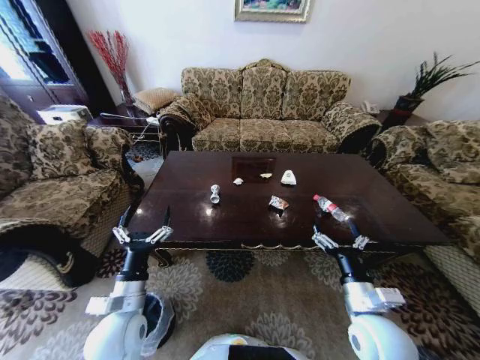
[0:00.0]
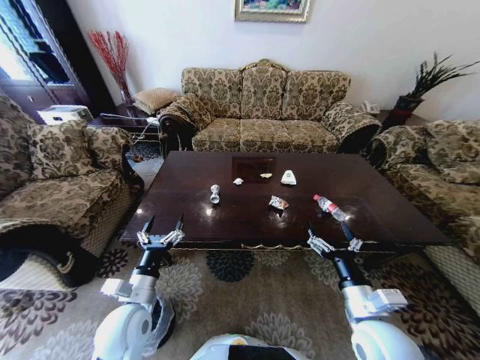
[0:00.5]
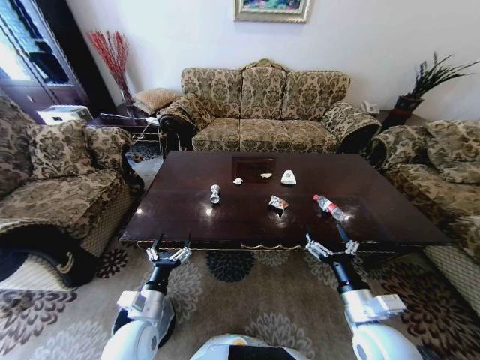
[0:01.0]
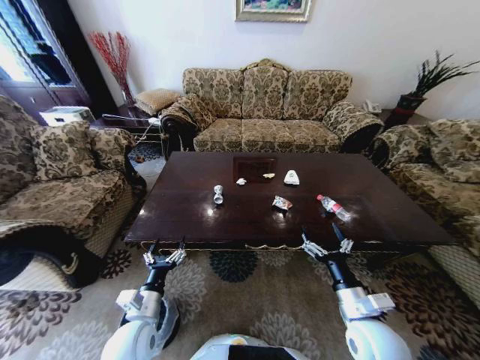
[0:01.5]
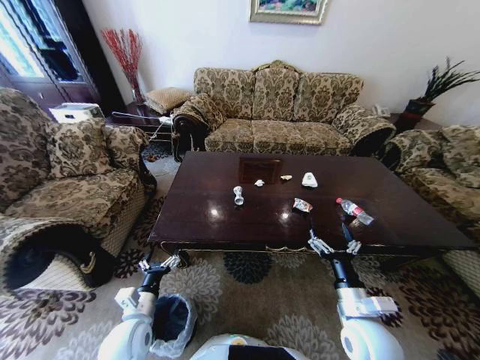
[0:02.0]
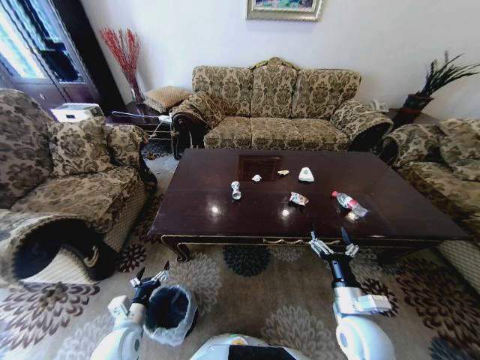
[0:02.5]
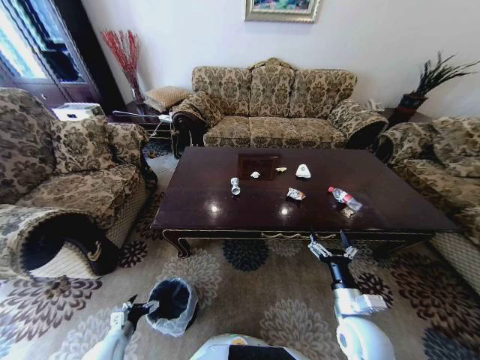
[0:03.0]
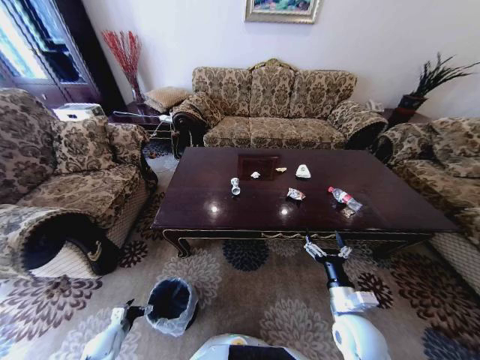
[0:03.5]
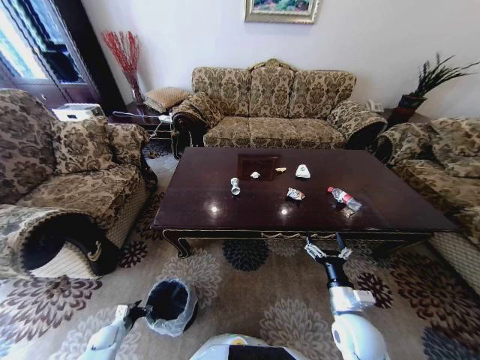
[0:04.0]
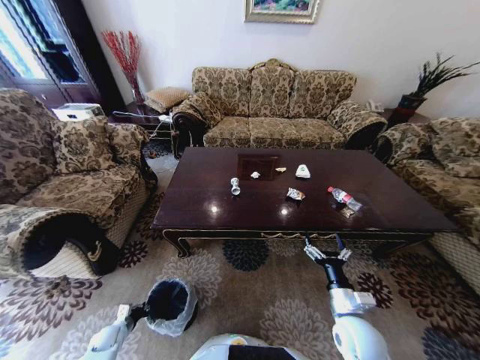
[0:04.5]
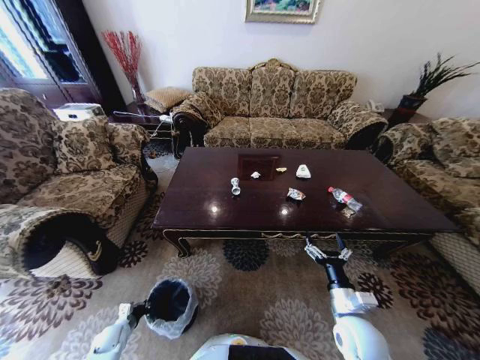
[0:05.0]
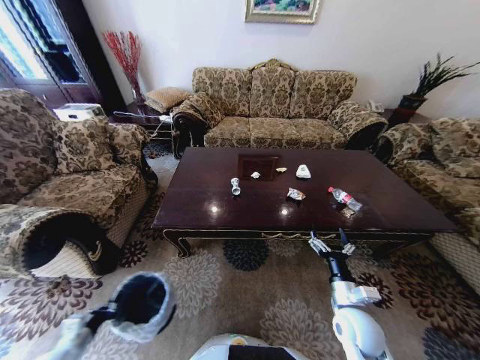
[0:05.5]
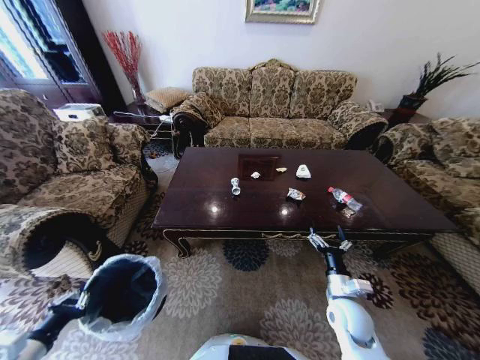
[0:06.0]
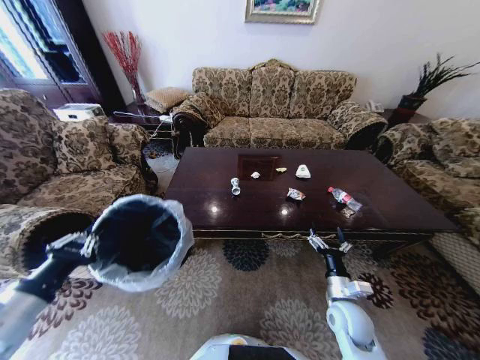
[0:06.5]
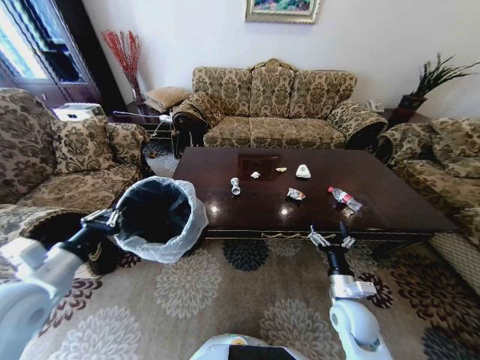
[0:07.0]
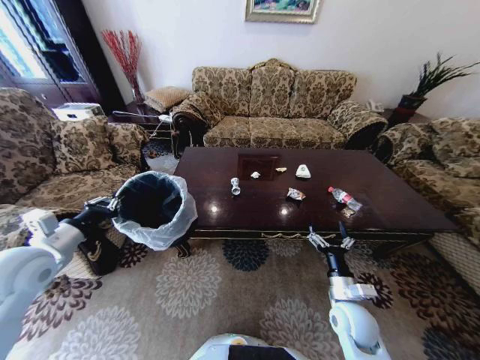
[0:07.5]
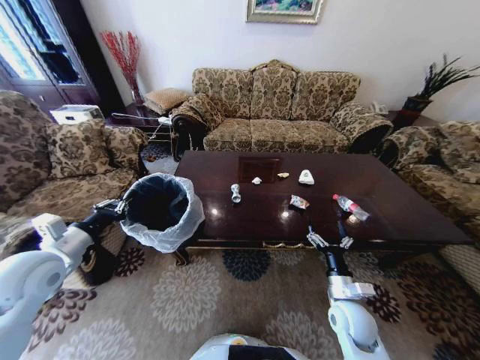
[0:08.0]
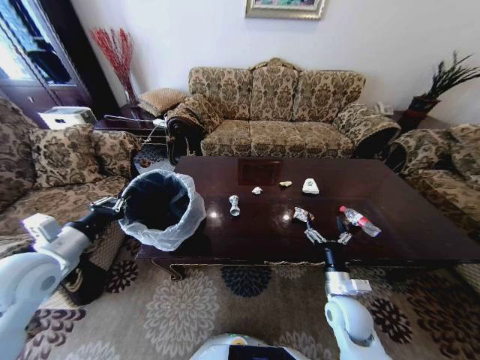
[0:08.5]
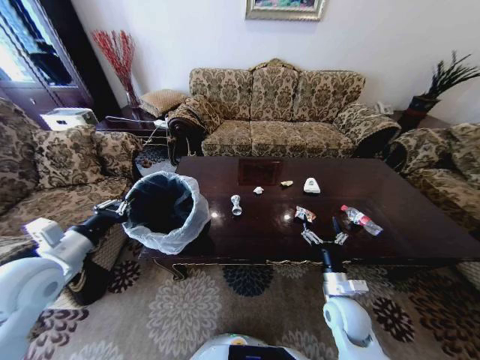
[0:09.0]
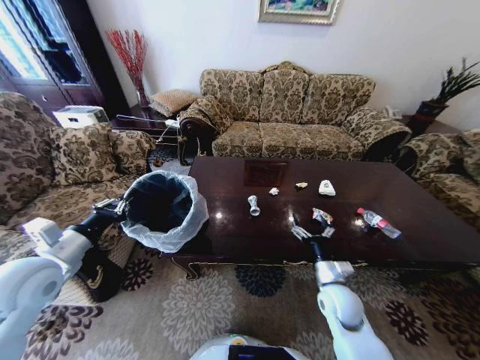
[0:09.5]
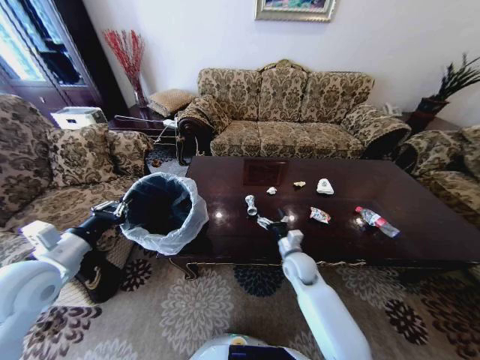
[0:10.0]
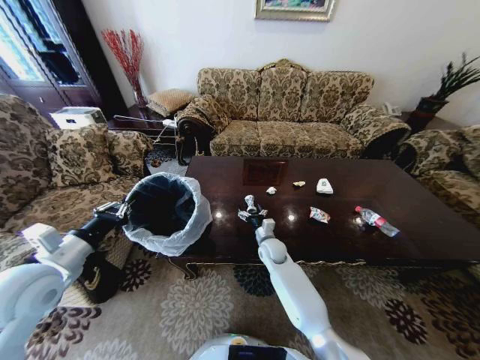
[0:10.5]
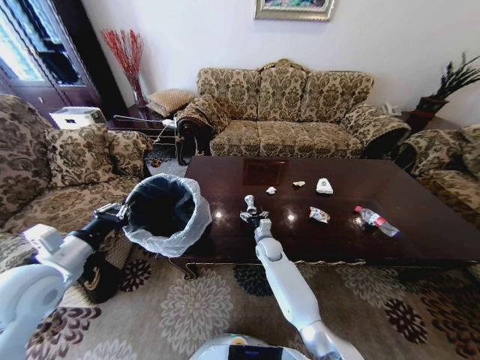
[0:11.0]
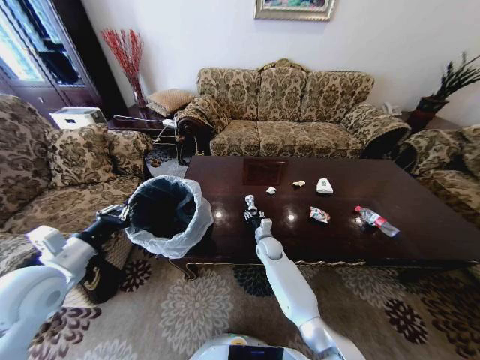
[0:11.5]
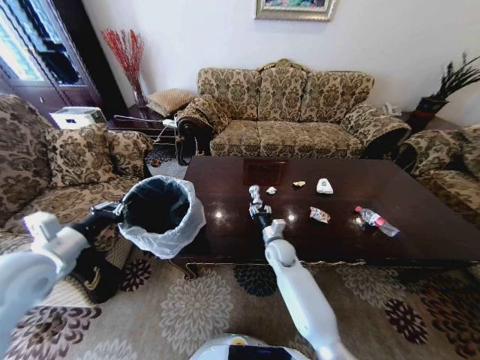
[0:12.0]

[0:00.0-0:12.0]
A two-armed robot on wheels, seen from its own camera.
Task of the whole recording: Move to the front of the table and place the trash on the table into the trash bin.
0:02.0 to 0:04.0: The left gripper is displaced downward and to the left by about 30 cm. Meanwhile the right gripper shifts by roughly 5 cm.
0:04.0 to 0:06.0: The left gripper heads upward, covering approximately 35 cm, and closes.
0:06.0 to 0:08.0: The left gripper travels forward and upward by roughly 20 cm.
0:08.0 to 0:10.0: The right gripper is displaced forward and to the left by about 15 cm.
0:10.0 to 0:12.0: The right gripper shifts roughly 5 cm forward and to the left, and closes up.

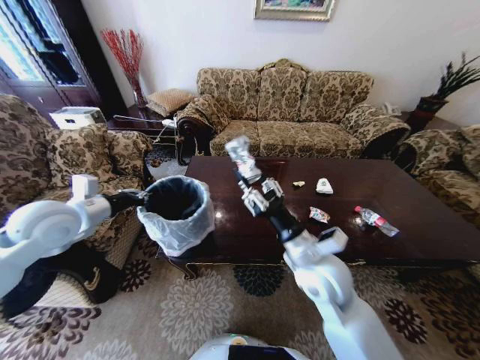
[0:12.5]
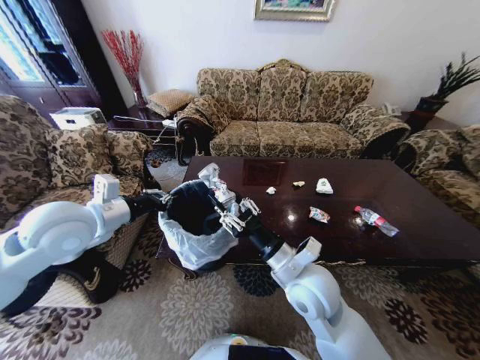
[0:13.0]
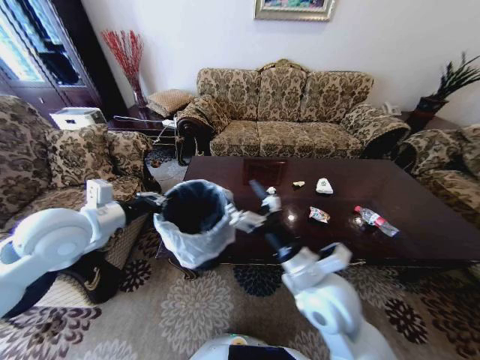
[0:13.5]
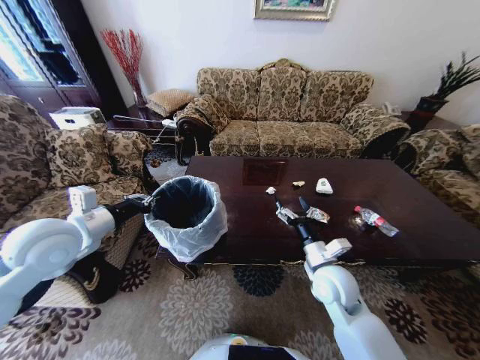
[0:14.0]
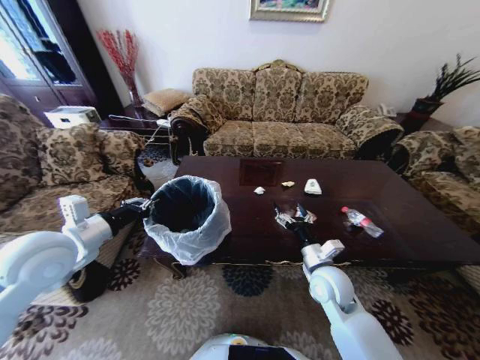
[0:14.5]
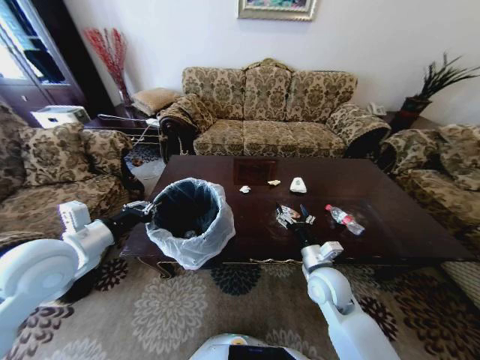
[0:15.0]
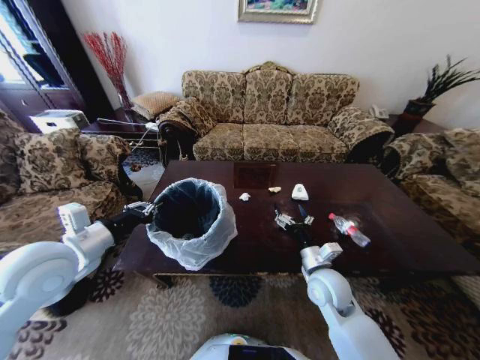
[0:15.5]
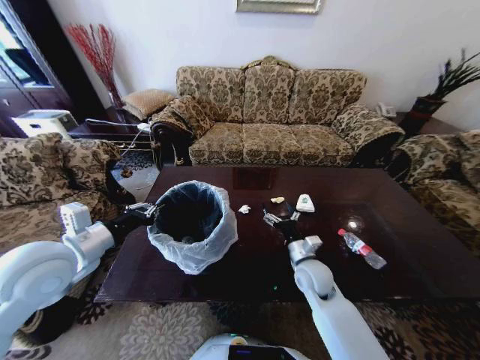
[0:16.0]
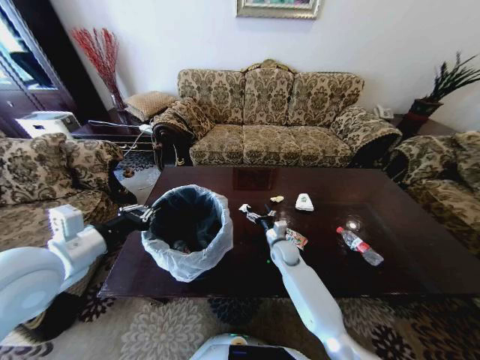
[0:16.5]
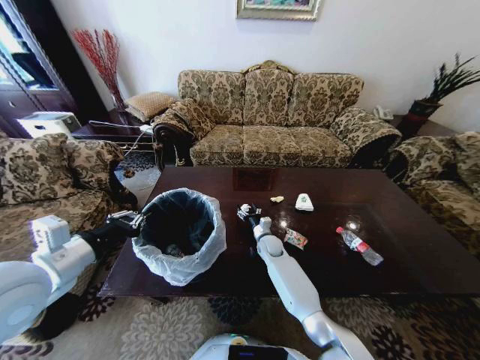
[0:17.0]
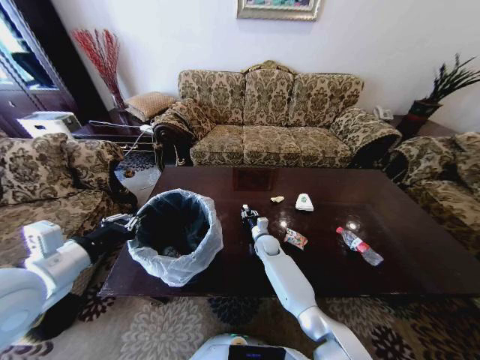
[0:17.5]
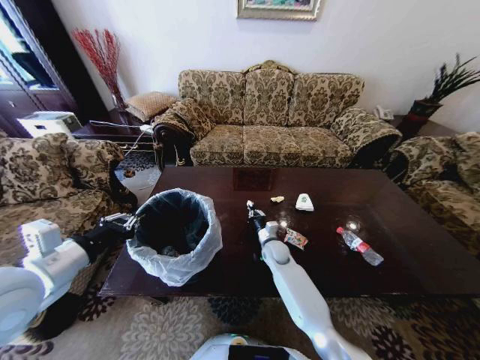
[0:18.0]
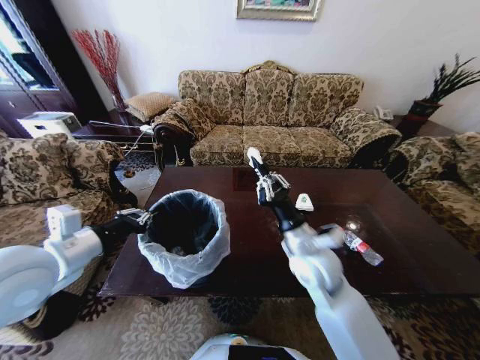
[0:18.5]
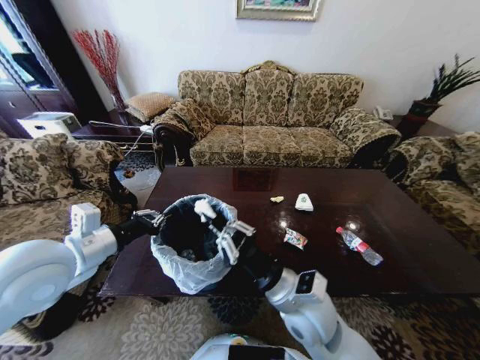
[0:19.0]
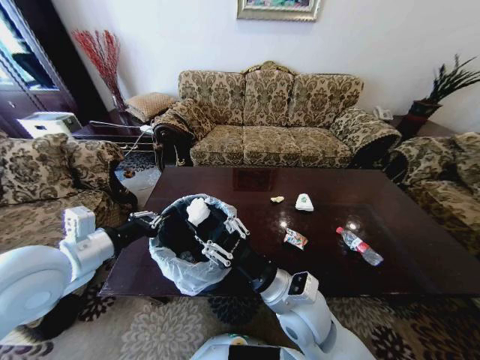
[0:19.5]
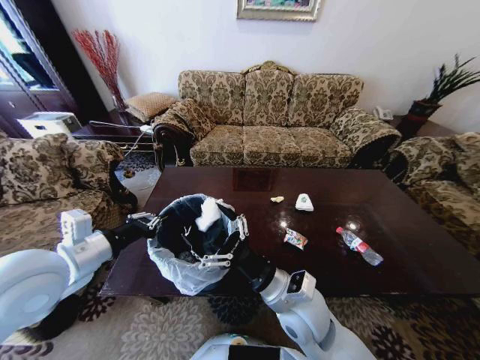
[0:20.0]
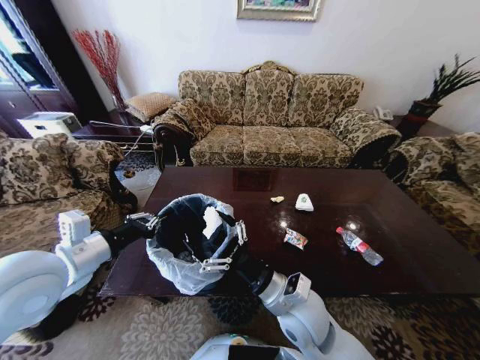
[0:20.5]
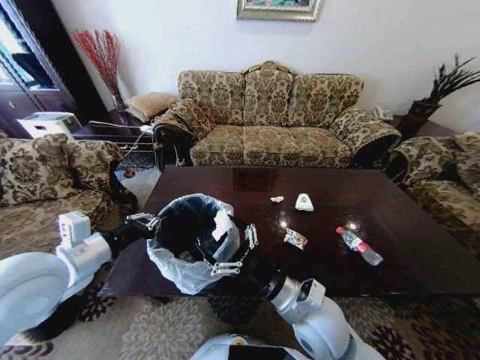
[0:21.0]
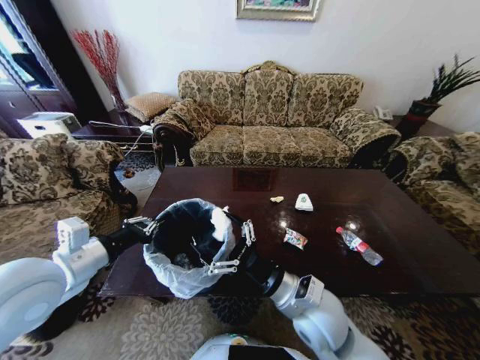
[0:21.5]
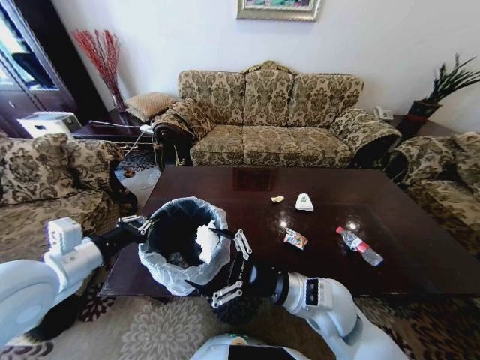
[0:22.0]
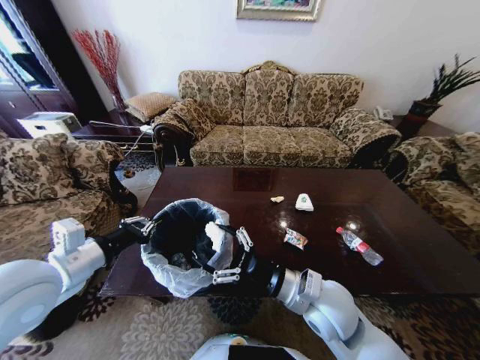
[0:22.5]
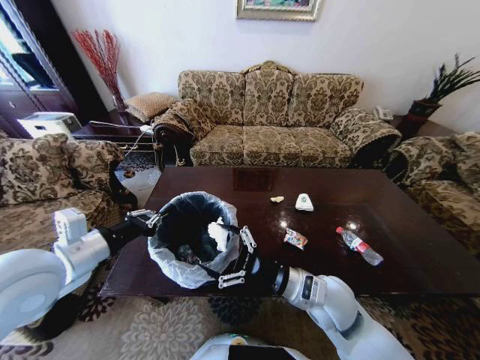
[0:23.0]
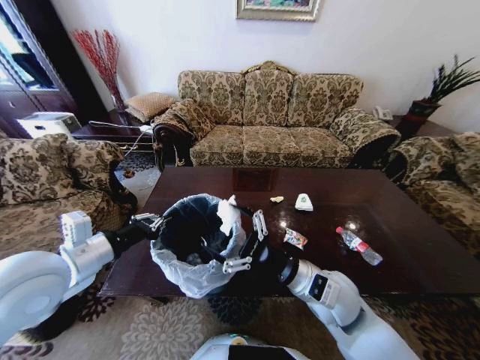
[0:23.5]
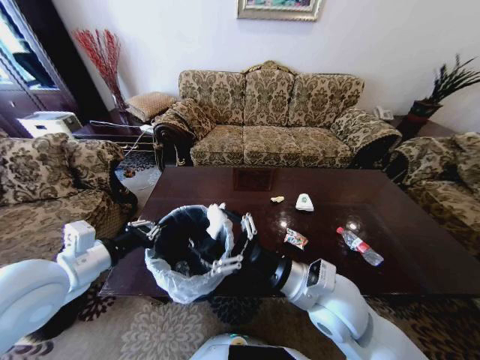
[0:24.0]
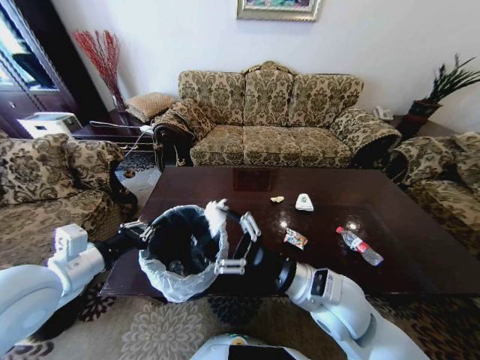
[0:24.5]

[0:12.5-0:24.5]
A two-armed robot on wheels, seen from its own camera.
Task of the whole recording: Move to the front of the table and place the trash on the table into the trash bin.
0:12.5 to 0:14.5: The right gripper goes approximately 10 cm downward and to the right, and opens its fingers. Meanwhile the left gripper travels backward by some 5 cm.
0:14.5 to 0:16.5: The right gripper moves forward, downward and to the left, some 20 cm; the left gripper ends up approximately 5 cm from where it was.
0:16.5 to 0:18.5: The right gripper is displaced upward and backward by about 25 cm, and closes up.
0:18.5 to 0:20.5: The right gripper moves backward, roughly 10 cm, and opens up.
0:20.5 to 0:22.5: The right gripper changes place by some 5 cm.

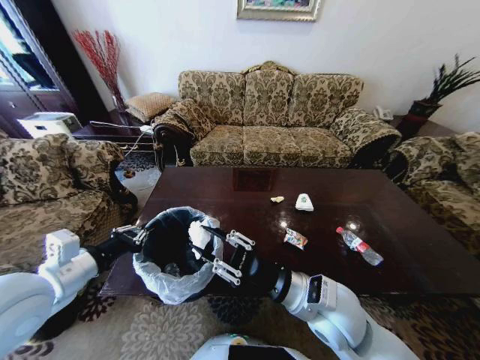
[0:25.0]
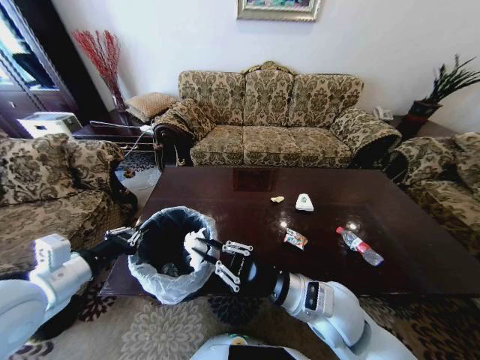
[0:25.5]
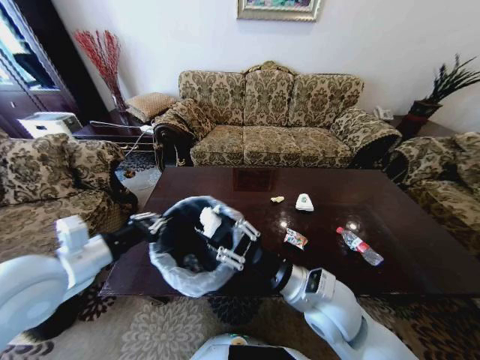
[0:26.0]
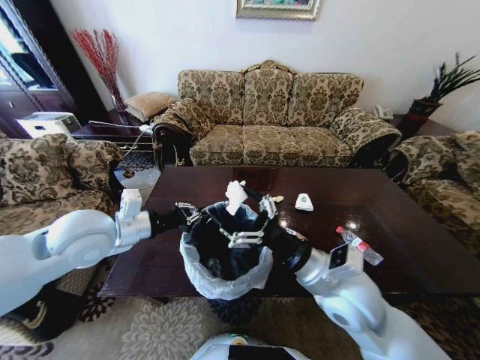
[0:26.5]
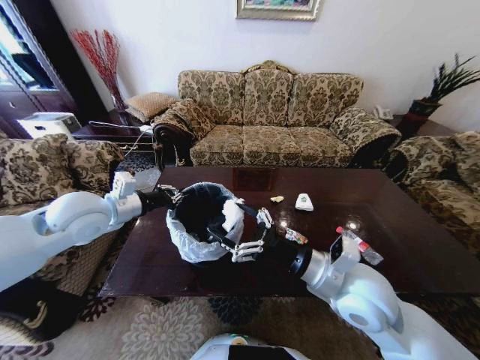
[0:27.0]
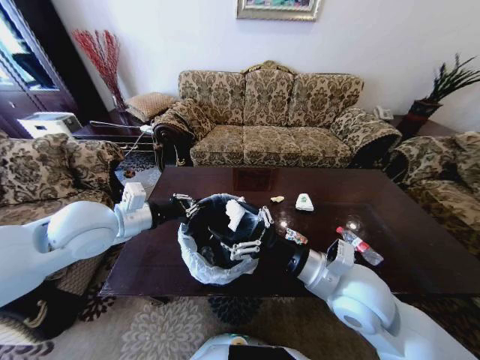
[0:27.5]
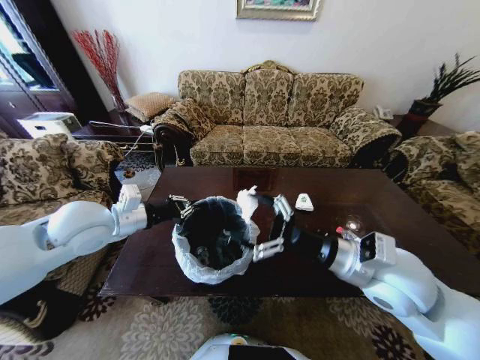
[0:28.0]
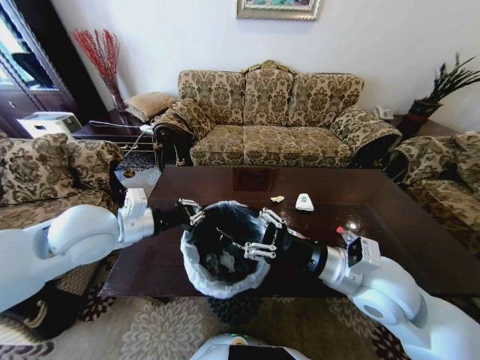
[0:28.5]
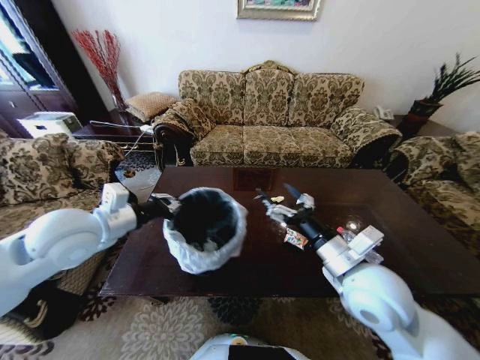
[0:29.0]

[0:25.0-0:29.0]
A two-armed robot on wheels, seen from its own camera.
Task of the whole recording: Move to the front of the table and place the trash on the table into the trash bin.
0:25.0 to 0:27.0: The left gripper is displaced forward by roughly 15 cm, while the right gripper moves some 5 cm, and opens.
